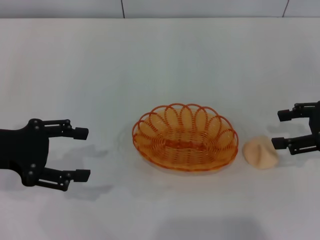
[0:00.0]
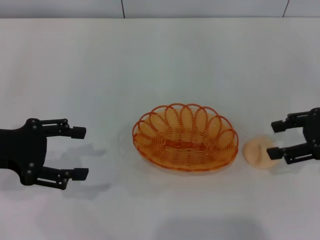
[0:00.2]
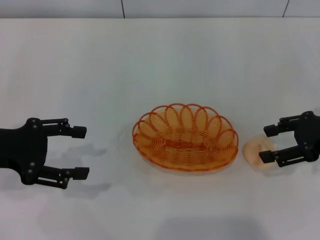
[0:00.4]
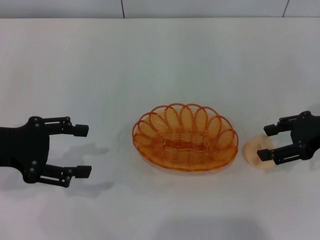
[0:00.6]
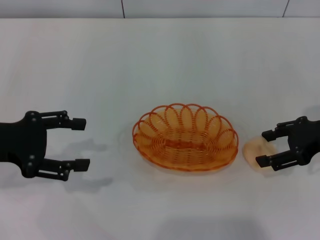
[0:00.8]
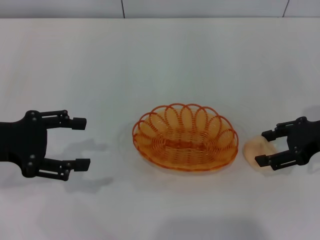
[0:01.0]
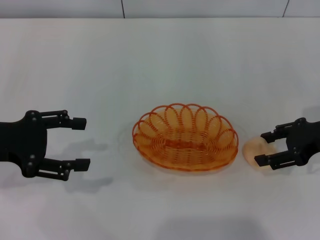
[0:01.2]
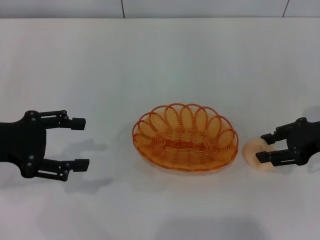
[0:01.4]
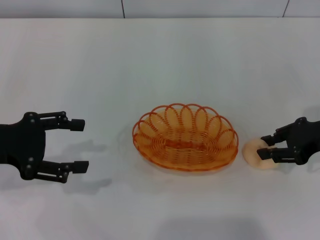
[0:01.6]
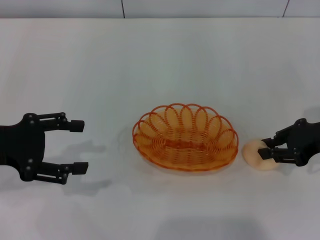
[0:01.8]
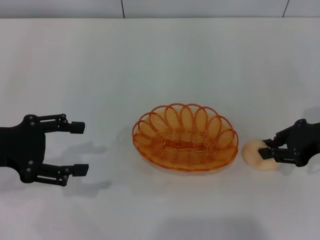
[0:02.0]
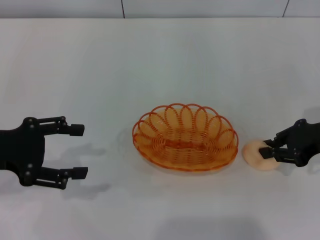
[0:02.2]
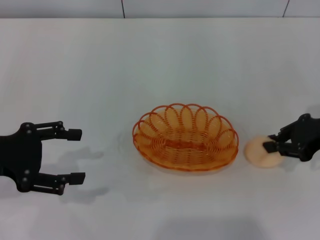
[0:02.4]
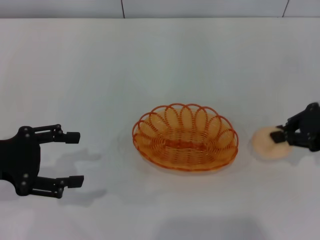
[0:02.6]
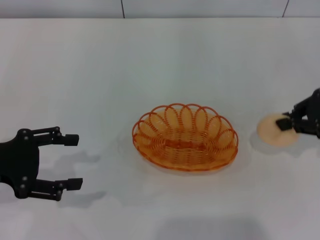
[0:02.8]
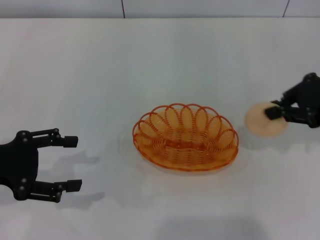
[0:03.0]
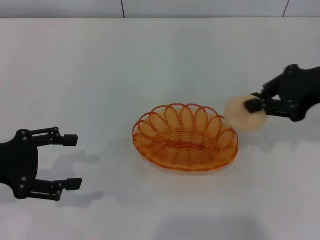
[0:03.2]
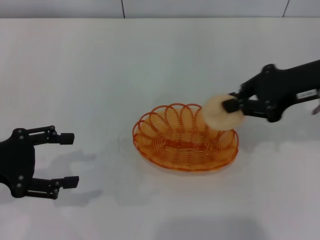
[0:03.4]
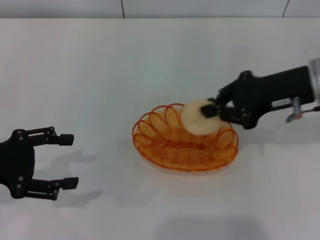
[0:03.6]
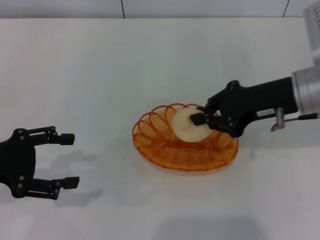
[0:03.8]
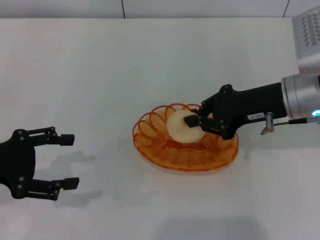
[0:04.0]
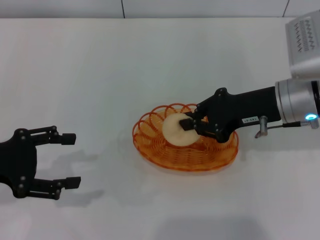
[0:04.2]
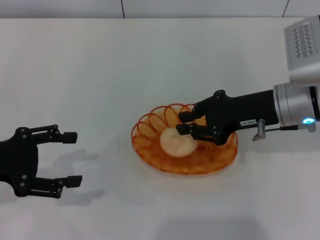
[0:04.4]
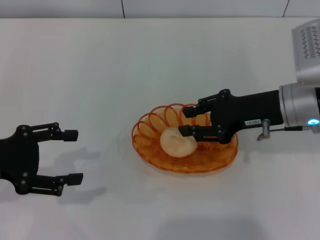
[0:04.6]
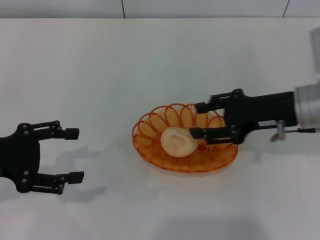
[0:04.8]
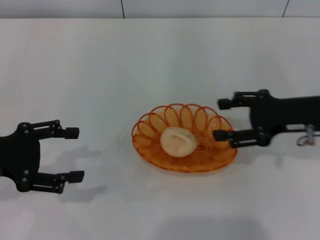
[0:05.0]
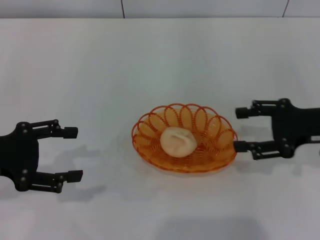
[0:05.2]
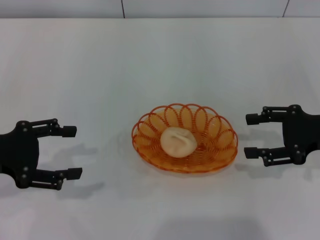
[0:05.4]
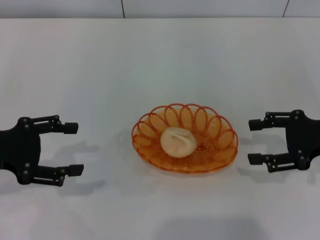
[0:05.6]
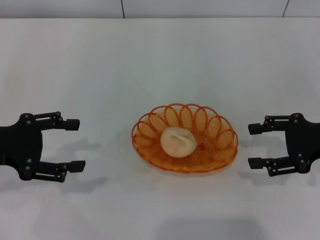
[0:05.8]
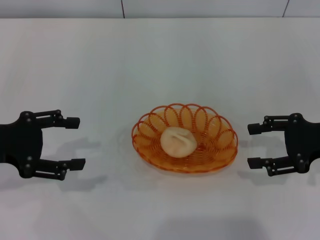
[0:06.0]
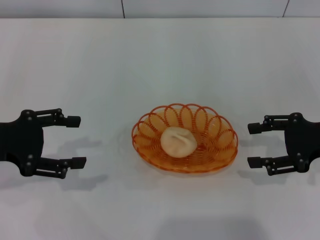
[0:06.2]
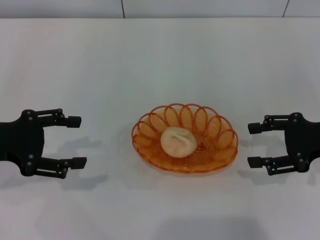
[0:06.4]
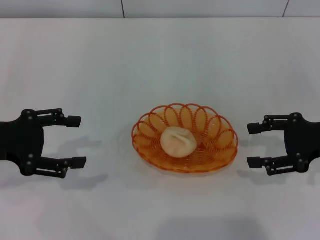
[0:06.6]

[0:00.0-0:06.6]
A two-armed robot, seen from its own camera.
Step, 0:00.0 to 0:02.6: Pick up the egg yolk pastry with the right gripper.
Step, 0:02.8 to 0:05.0: Place the egg yolk pastry into the basket with the right gripper.
0:00.0 to 0:01.6: The grippers make only small movements.
0:01.6 to 0:03.2: The right gripper travels upward by about 10 cm, and closes.
0:03.2 to 0:05.0: The right gripper is displaced downward by approximately 10 cm, and opens its fingers.
0:05.0 to 0:06.6: The right gripper changes place by about 5 cm.

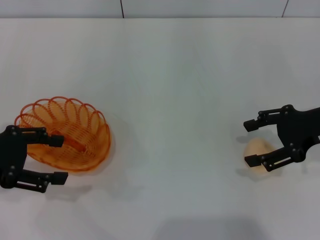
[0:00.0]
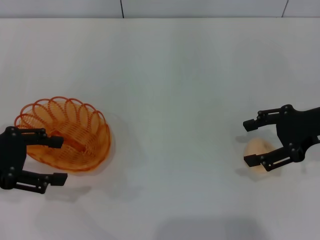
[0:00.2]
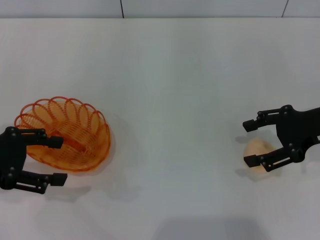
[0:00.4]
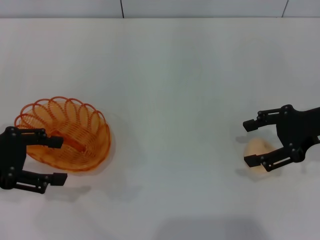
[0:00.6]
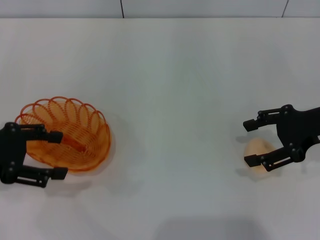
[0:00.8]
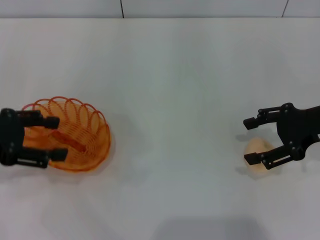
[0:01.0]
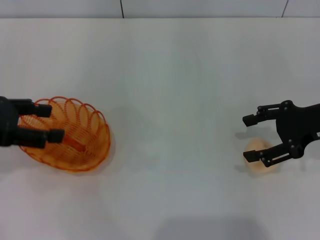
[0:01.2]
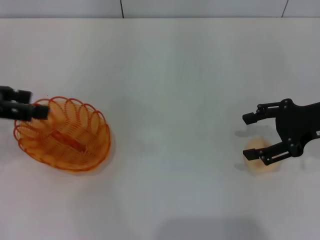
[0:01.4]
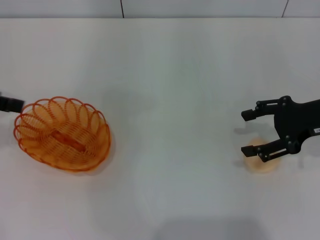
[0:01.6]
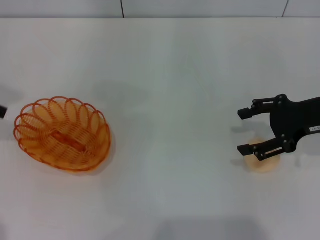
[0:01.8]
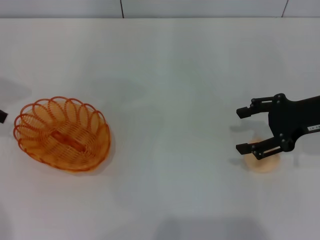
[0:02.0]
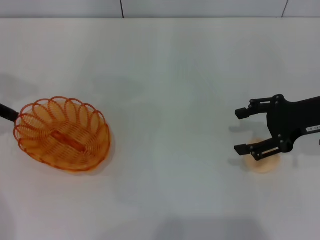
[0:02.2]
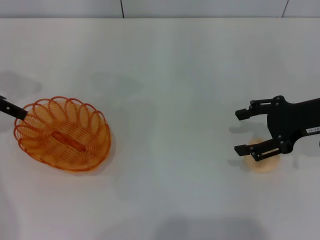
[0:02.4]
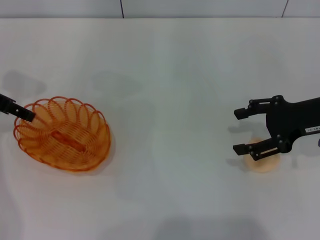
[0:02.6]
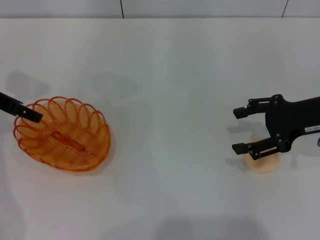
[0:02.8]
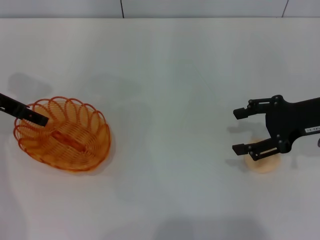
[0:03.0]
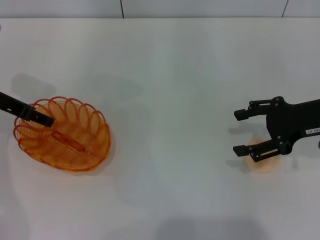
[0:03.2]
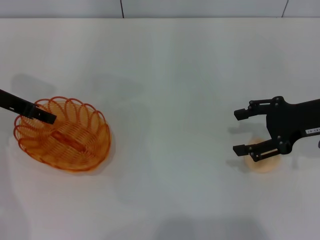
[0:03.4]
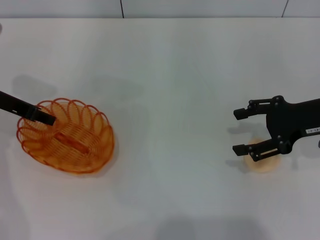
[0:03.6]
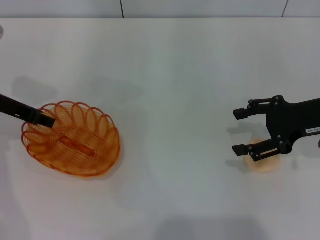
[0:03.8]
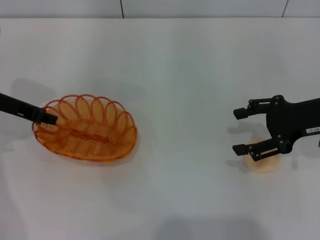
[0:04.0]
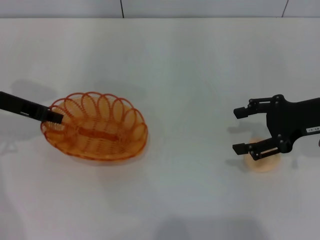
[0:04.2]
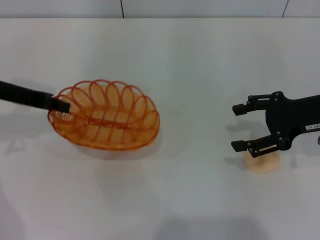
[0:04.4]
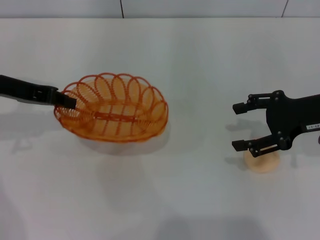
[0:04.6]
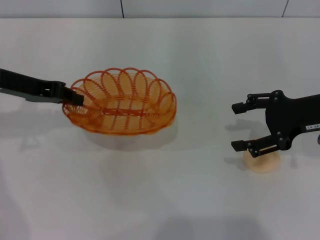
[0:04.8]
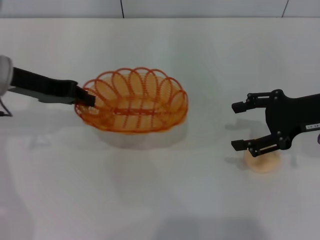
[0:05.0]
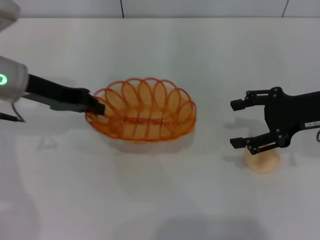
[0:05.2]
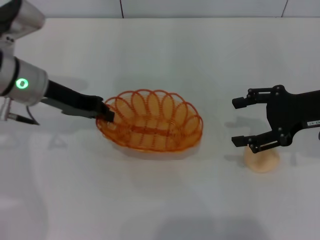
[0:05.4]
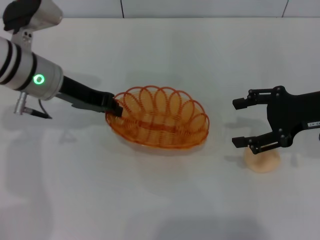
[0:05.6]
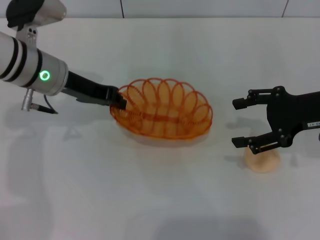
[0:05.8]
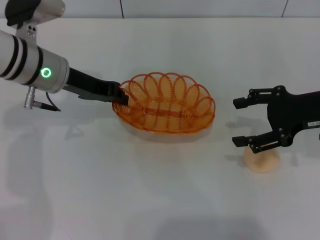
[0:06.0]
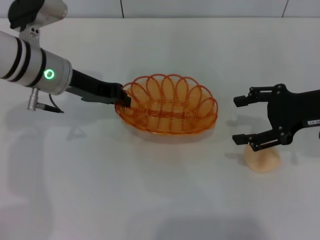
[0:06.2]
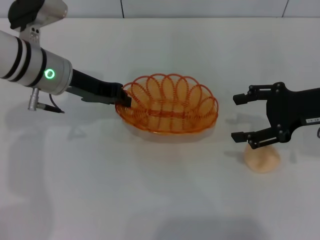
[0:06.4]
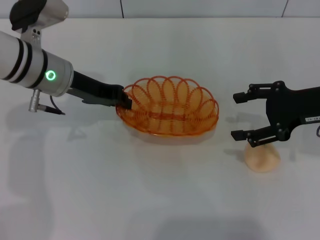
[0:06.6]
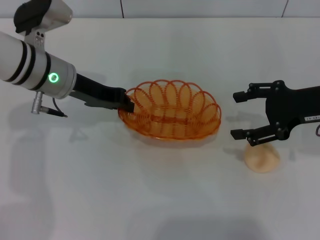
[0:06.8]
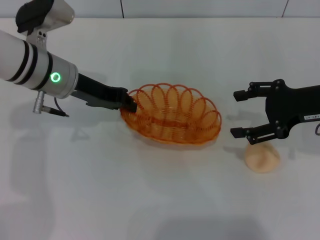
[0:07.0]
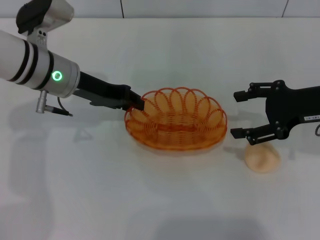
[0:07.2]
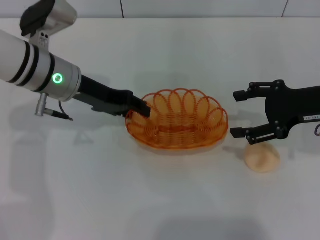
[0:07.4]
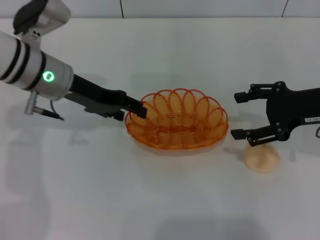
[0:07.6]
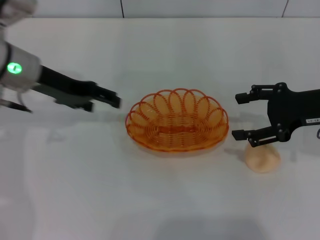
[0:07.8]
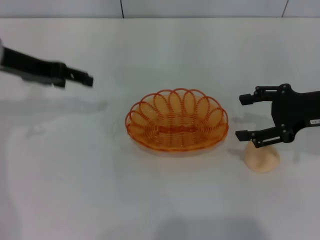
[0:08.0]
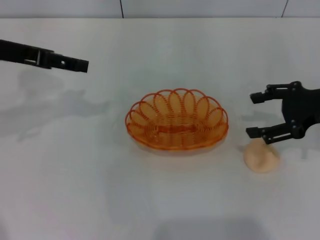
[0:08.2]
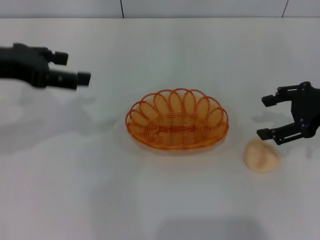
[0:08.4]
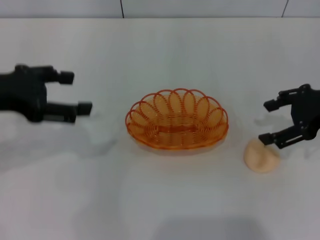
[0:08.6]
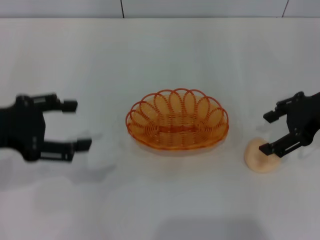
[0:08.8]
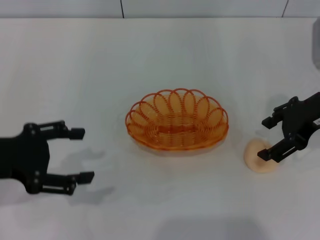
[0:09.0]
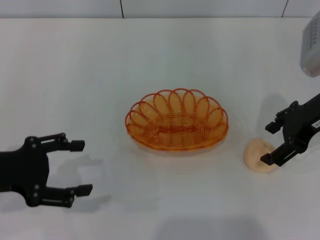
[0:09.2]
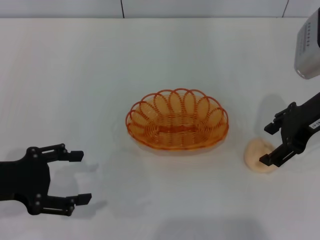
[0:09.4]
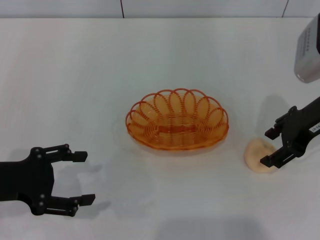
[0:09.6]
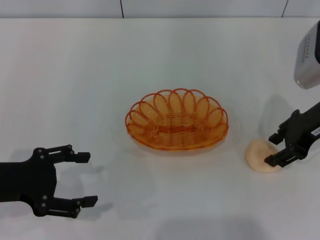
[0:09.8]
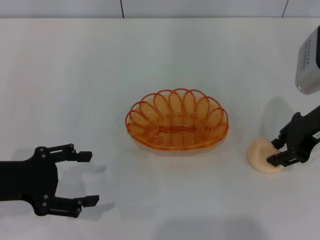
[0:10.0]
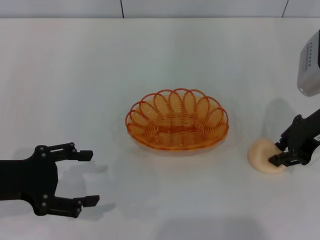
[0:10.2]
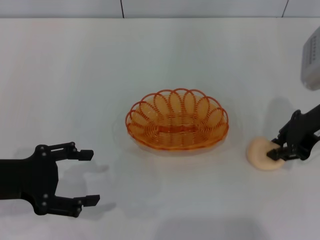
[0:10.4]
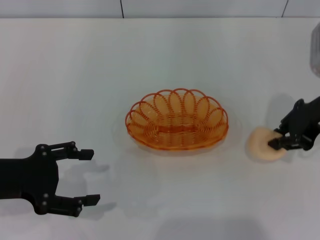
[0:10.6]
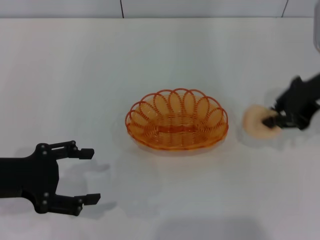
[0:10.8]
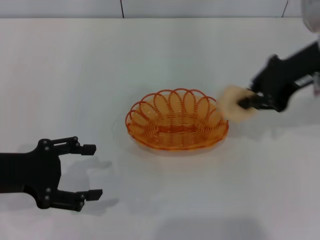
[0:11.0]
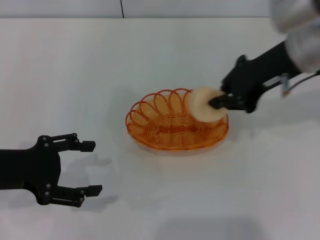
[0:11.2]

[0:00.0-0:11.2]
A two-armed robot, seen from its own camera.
Step, 0:00.0 to 0:04.6: Pick up the basket with the left gripper.
Step, 0:04.8 to 0:07.8: Place the basket in the center of view with the left gripper.
Step, 0:08.0 to 0:10.8: Pick up the egg yolk pastry with the right gripper.
0:00.0 to 0:01.6: The left gripper heads upward, covering approximately 10 cm.
0:01.6 to 0:03.2: The left gripper shifts some 10 cm downward and forward.
0:03.2 to 0:04.8: The left gripper closes up.
0:04.8 to 0:06.4: The left gripper goes roughly 10 cm to the right.
0:06.4 to 0:08.0: The left gripper shifts roughly 10 cm to the left and upward, and opens its fingers.
0:08.0 to 0:09.6: The left gripper heads backward and downward, covering roughly 15 cm, while the right gripper changes place by approximately 5 cm.
0:09.6 to 0:11.2: The right gripper heads to the left and upward, covering some 10 cm, and closes its fingers.

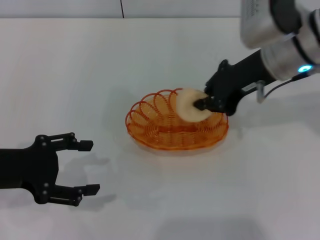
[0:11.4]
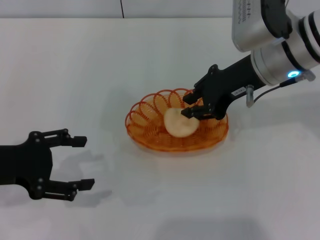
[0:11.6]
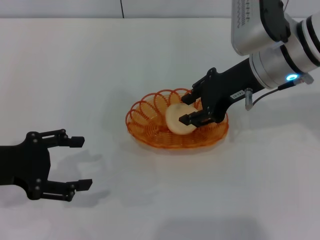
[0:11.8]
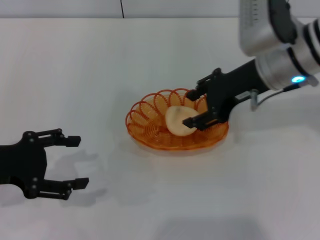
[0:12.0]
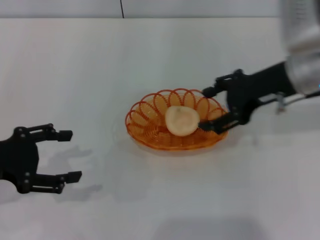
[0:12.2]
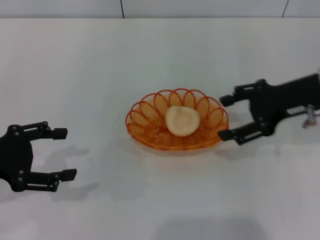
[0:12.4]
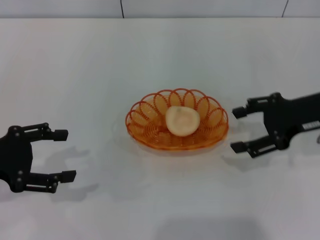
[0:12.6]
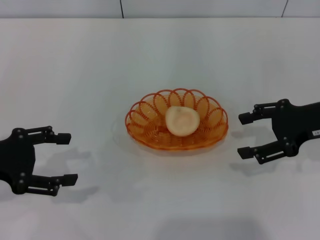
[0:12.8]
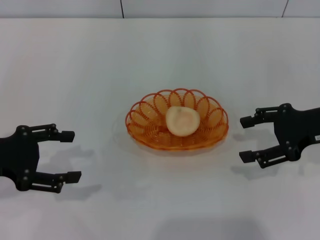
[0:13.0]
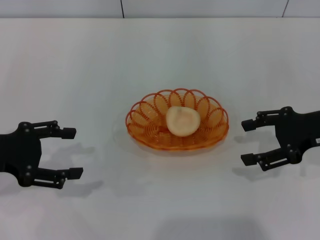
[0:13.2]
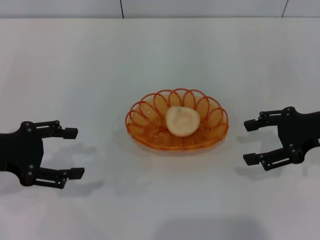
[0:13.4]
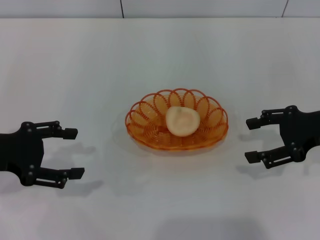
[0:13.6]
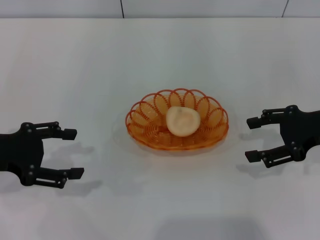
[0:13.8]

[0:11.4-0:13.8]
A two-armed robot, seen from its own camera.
Step, 0:11.4 to 0:12.2: Place the egg yolk pastry into the basket with the right gripper.
0:11.4 to 0:12.6: The right gripper shifts roughly 10 cm to the right and downward, and opens up.
0:12.6 to 0:13.8: The grippers make only small movements.
